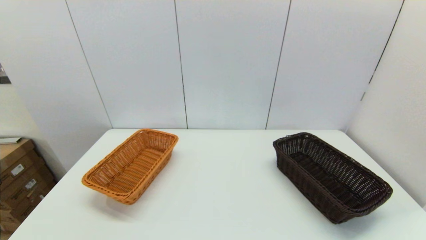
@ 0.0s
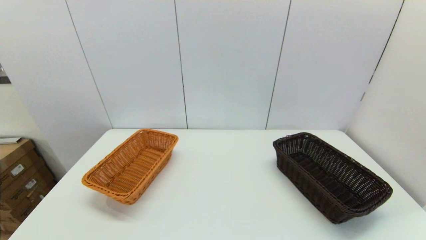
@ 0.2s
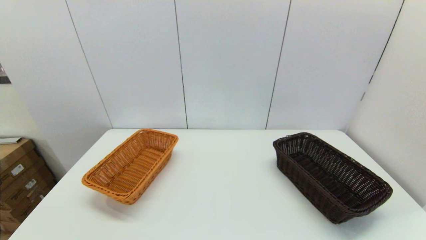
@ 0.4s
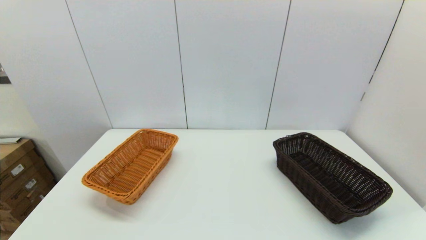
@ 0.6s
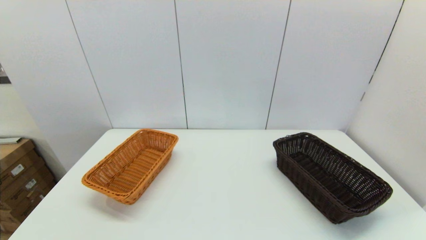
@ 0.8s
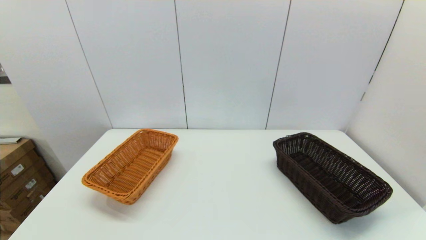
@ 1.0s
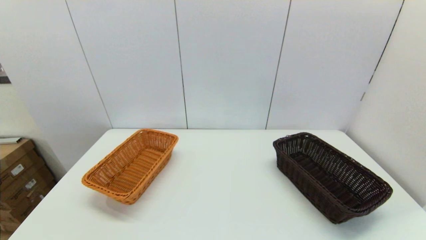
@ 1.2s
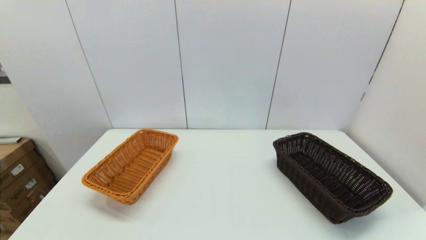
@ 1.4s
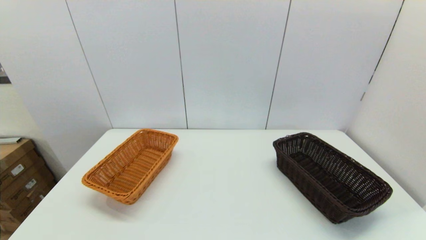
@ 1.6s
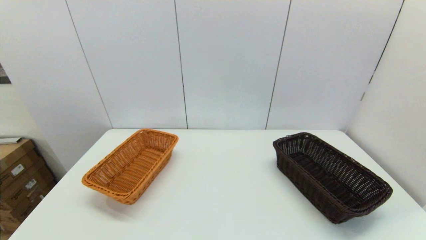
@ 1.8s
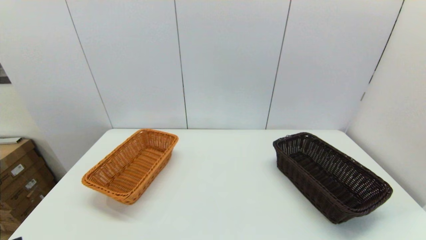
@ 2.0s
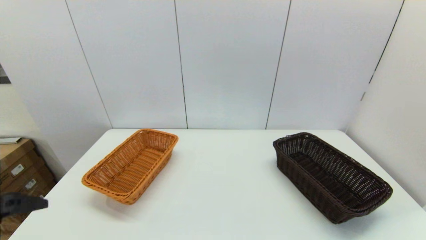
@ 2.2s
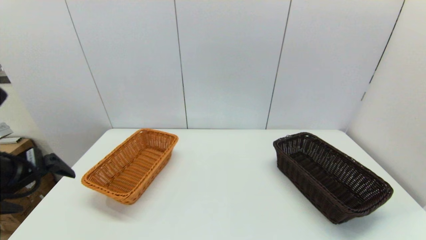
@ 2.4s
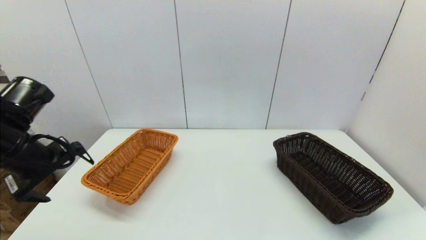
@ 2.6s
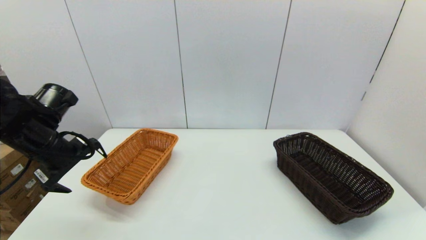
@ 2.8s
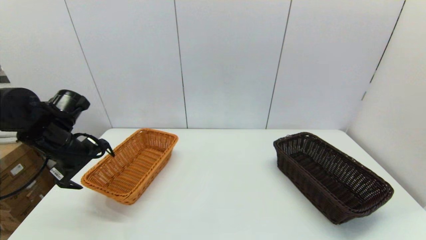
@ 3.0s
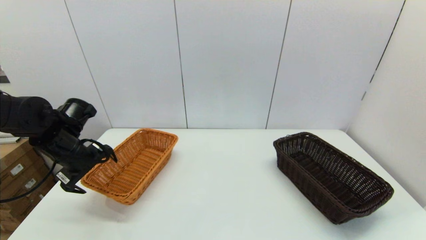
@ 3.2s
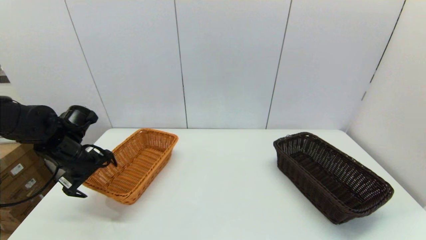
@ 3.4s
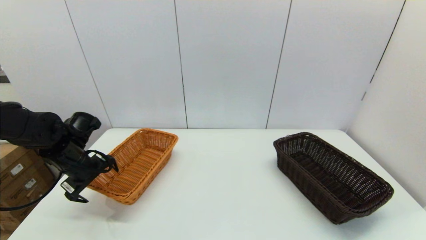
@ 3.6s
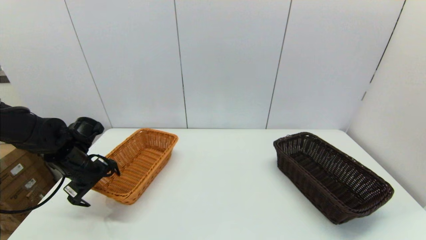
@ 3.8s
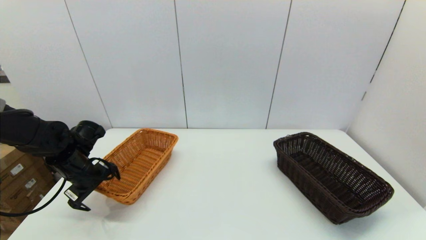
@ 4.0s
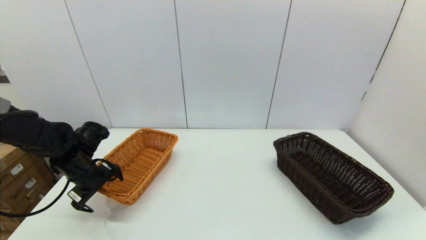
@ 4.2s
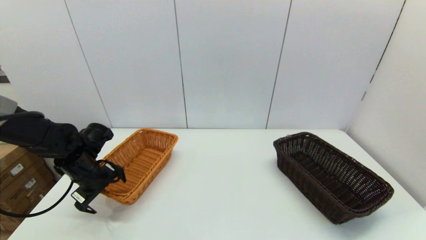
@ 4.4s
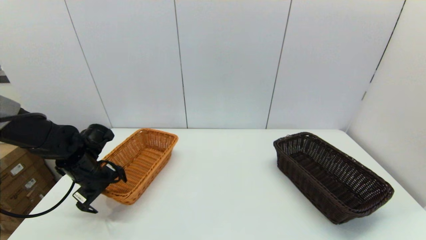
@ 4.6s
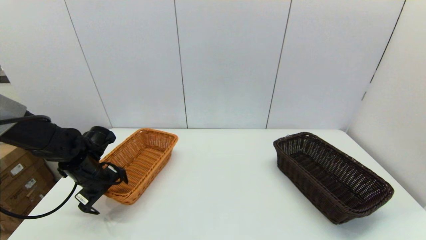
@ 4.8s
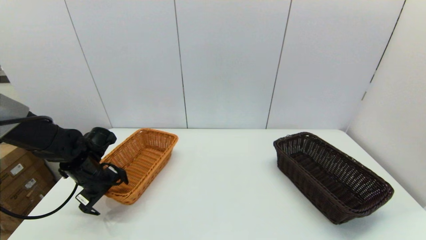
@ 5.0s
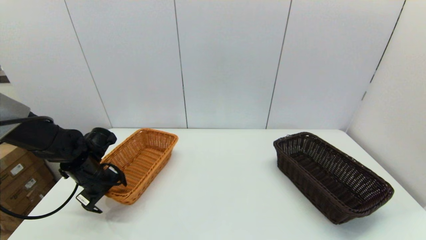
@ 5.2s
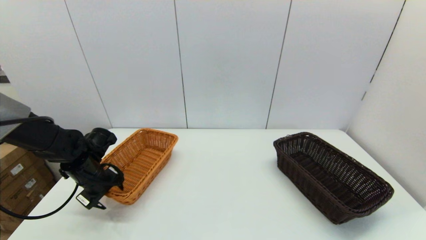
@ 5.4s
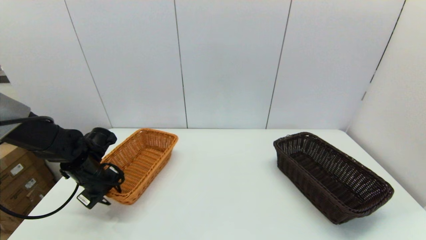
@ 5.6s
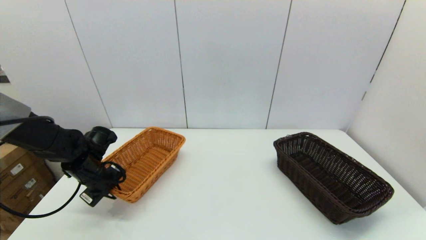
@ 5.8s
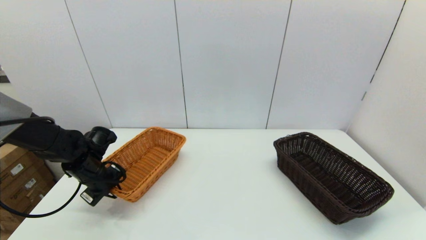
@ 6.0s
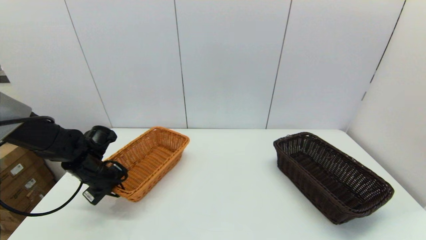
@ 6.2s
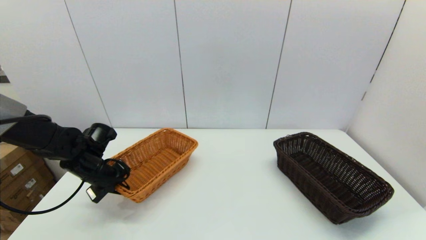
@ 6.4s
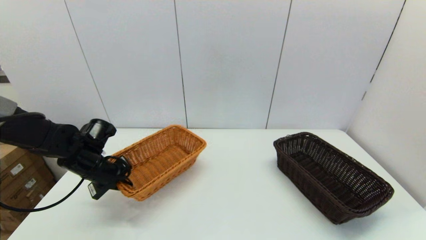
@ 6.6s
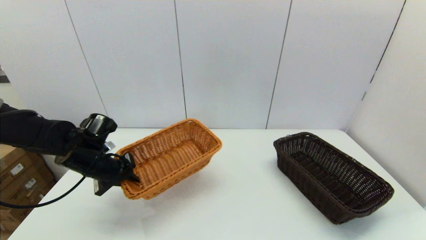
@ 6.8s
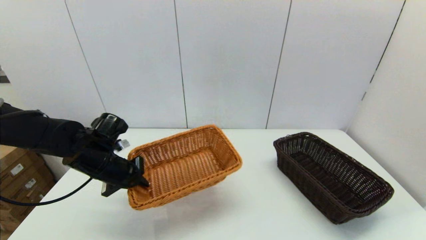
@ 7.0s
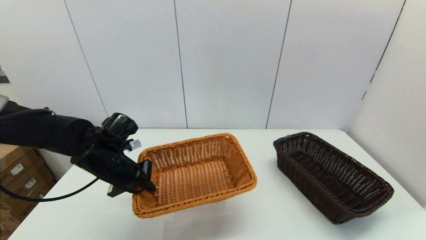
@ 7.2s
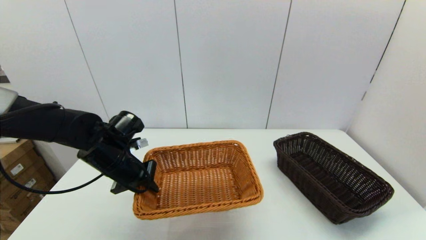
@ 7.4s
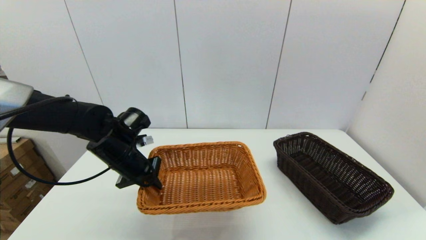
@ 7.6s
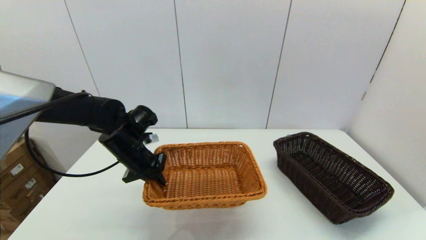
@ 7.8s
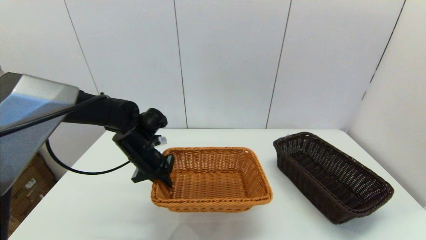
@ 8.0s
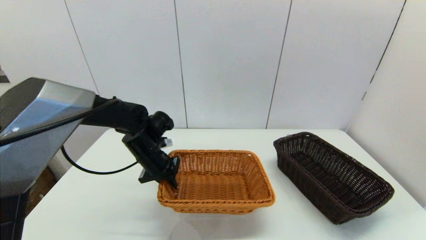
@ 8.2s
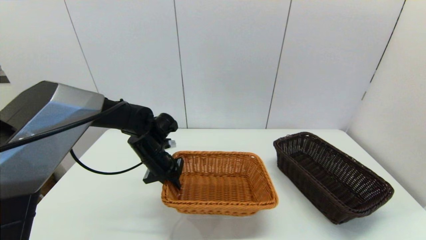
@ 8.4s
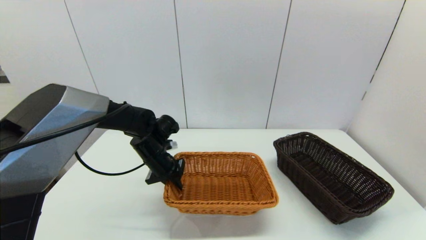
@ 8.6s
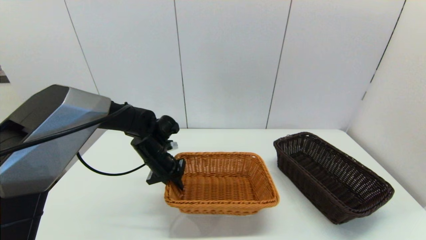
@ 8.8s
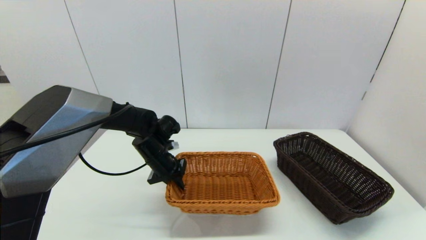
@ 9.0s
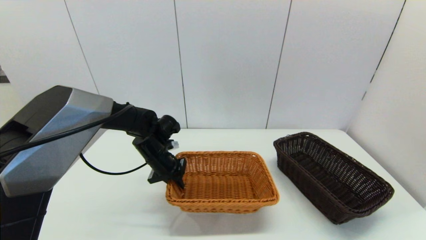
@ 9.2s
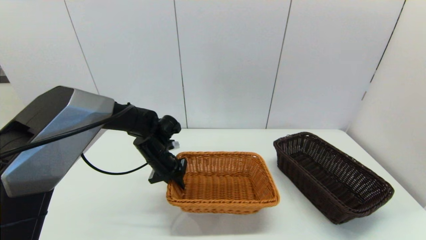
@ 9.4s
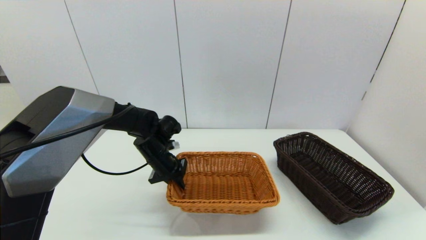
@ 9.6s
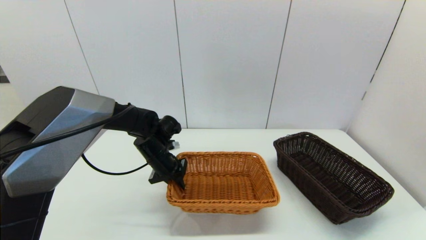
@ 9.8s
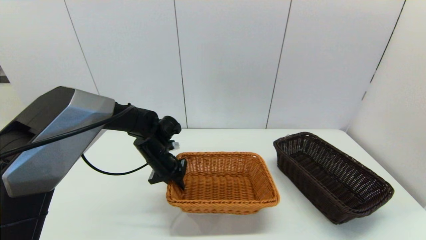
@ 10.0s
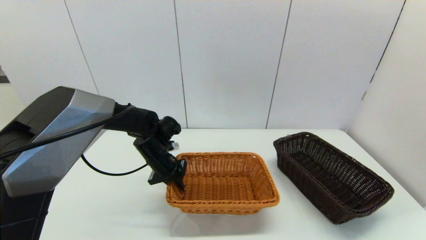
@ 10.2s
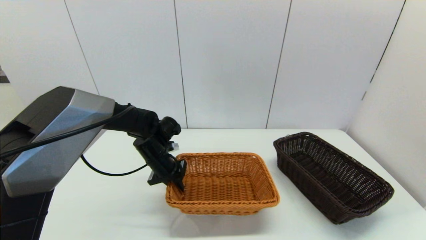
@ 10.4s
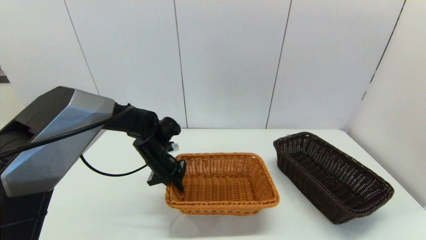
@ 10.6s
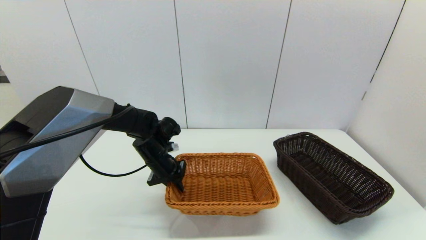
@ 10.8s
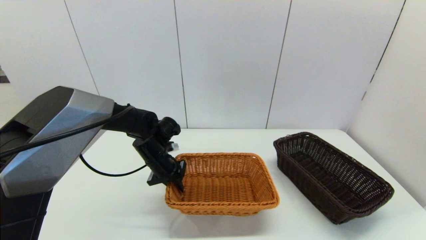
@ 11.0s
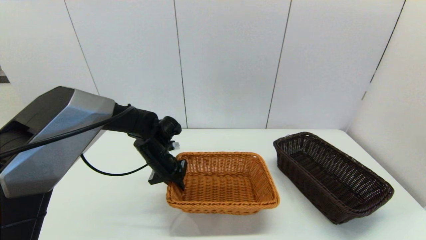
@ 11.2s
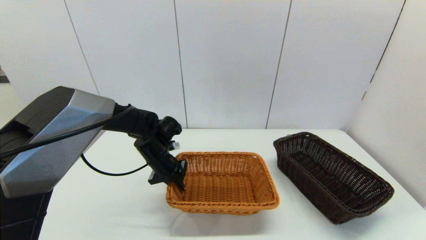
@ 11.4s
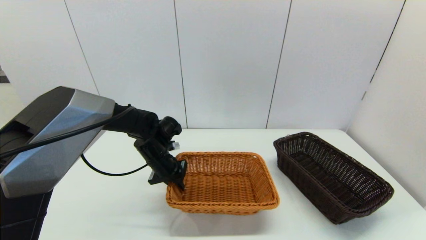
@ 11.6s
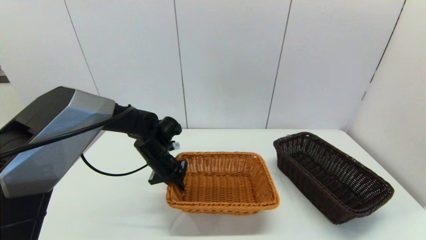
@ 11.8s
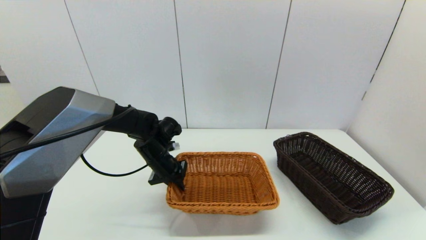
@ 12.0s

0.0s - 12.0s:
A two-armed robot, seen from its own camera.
Task of the whole recording: stack a basket on top of another basket.
Step, 2.0s - 6.0s: Grasp the light basket with the left gripper.
1.6s - 3.0s: The left gripper is displaced forward by about 35 cm.
3.0s - 4.4s: The left gripper goes about 10 cm downward.
4.4s - 6.0s: The left gripper closes its fingers.
6.0s - 7.6s: The left gripper travels to the right and upward by approximately 10 cm.
7.6s - 9.0s: The left gripper is displaced forward and to the right by some 5 cm.
9.0s - 12.0s: The two grippers keep their place.

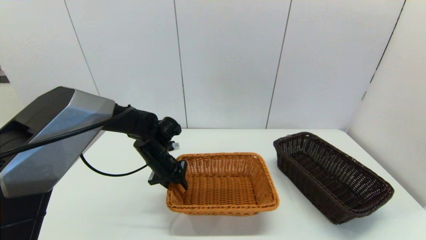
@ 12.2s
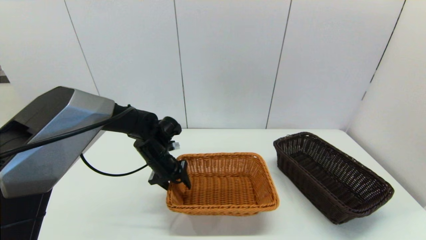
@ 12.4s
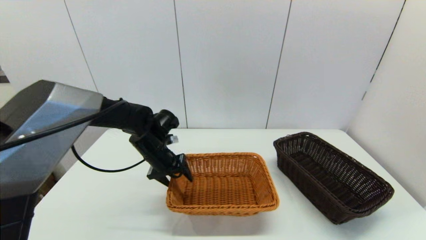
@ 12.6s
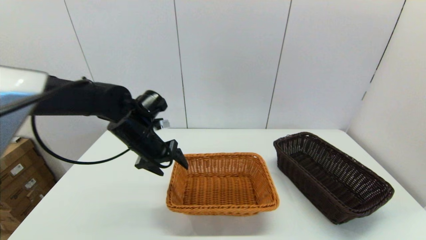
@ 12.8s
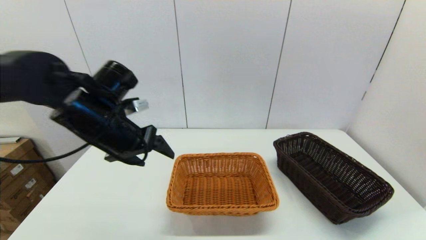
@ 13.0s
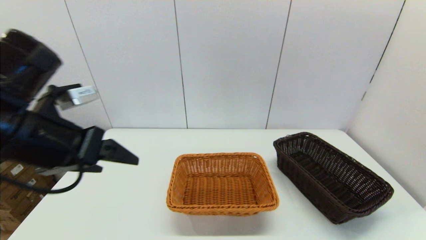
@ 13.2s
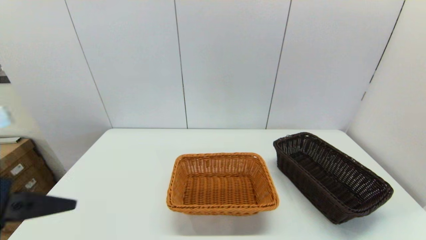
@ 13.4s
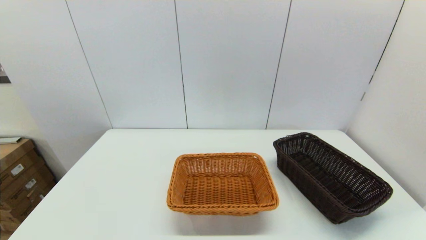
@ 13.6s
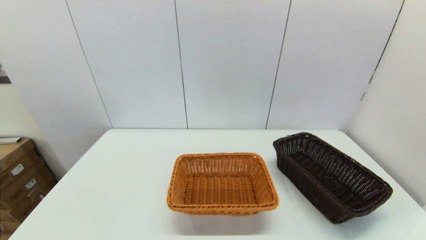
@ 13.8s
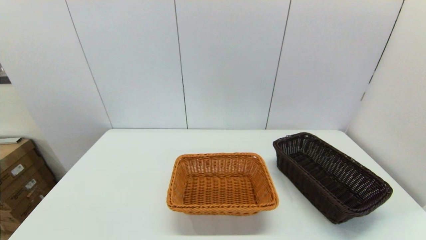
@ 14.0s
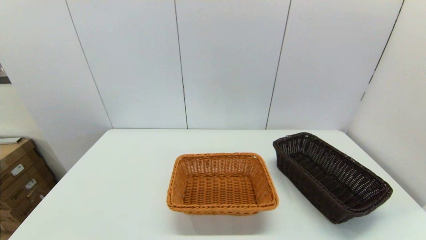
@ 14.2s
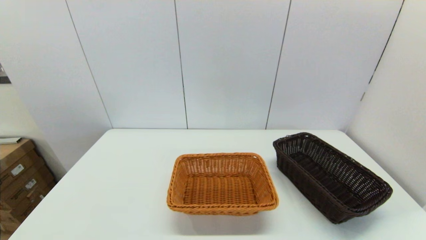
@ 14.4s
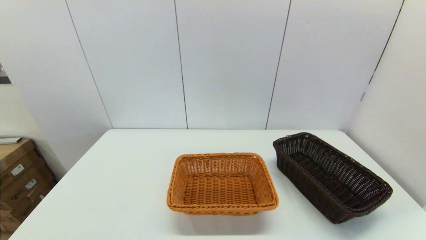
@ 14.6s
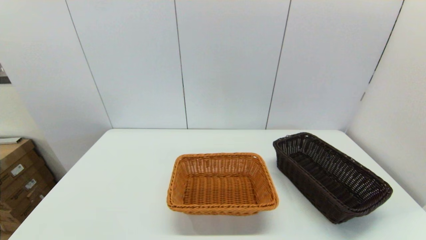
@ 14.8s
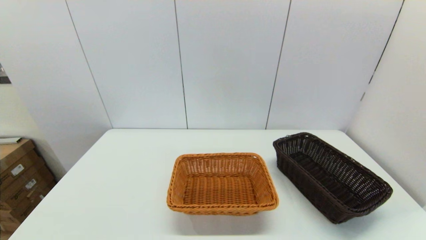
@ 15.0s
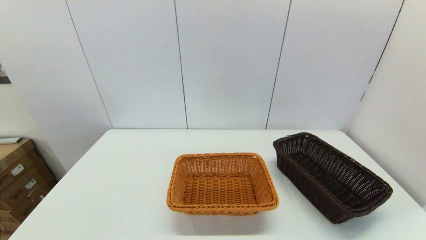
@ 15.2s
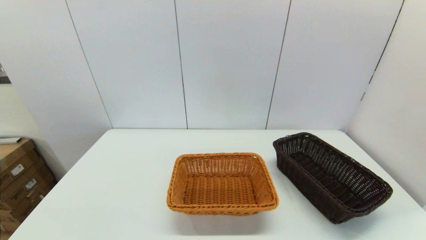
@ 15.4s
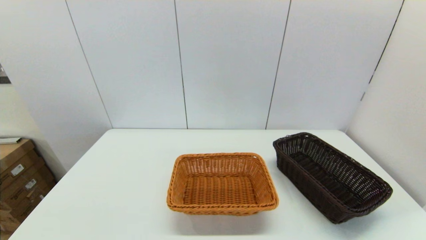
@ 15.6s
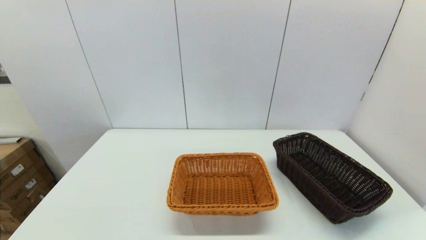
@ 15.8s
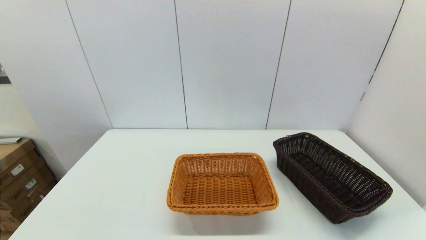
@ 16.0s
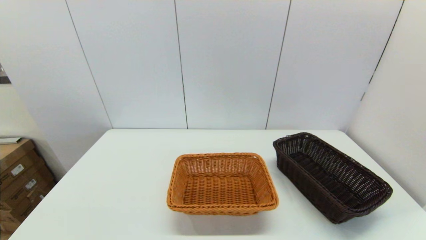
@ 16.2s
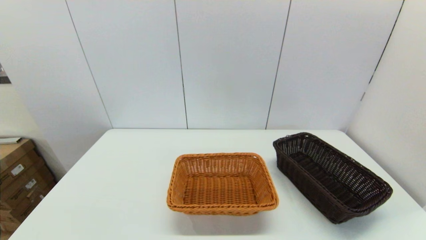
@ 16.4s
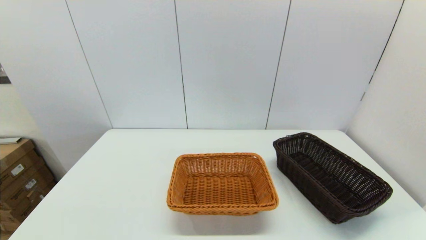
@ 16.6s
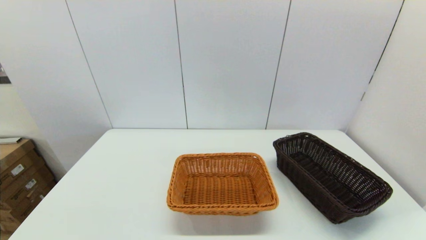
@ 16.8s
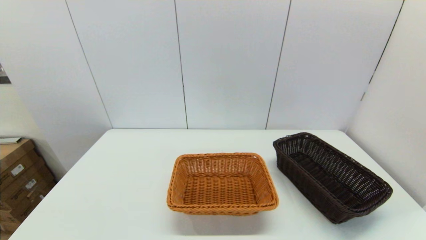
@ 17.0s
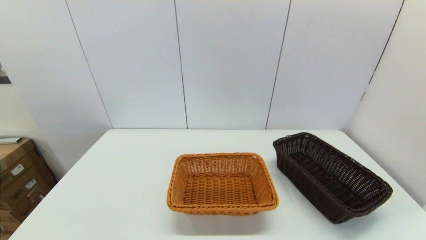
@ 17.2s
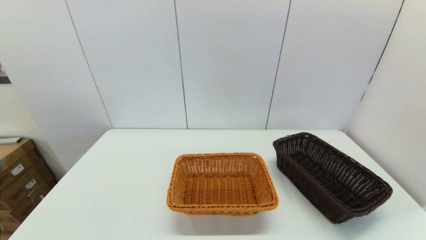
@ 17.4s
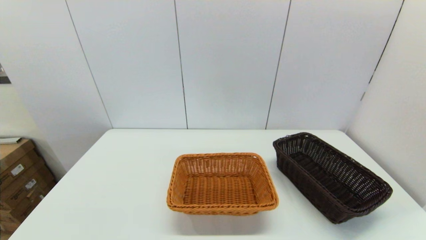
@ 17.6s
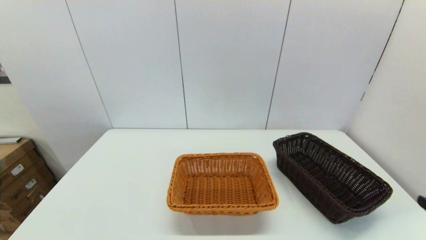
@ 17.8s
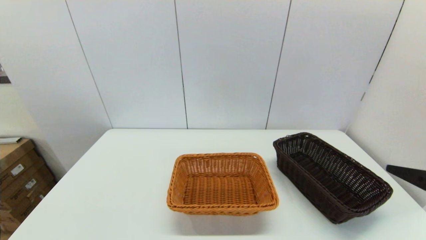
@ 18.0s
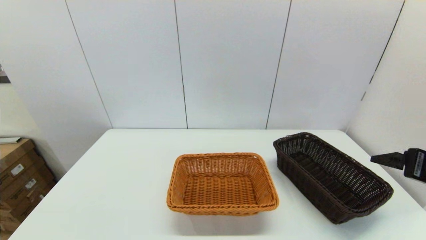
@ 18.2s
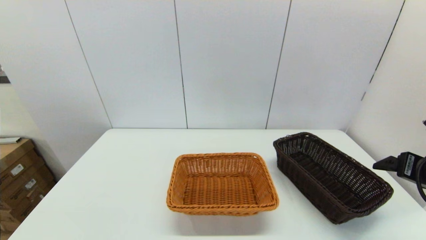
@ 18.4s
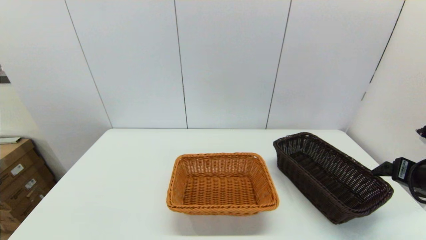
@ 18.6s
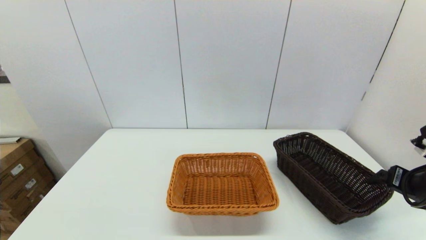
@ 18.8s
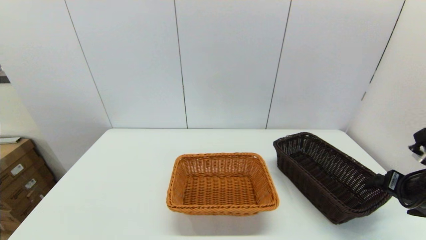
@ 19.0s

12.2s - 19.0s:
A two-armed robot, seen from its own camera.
Task of the whole recording: stack a basket on top of another basket.
12.2s - 13.6s: The left gripper goes approximately 40 cm backward, upward and to the left, and opens.
17.6s - 19.0s: The right gripper goes roughly 20 cm forward.
